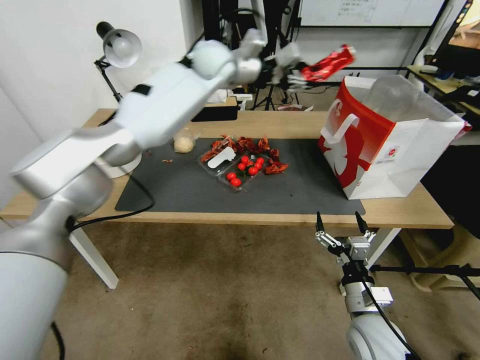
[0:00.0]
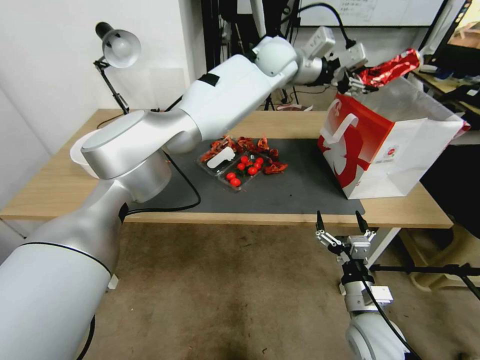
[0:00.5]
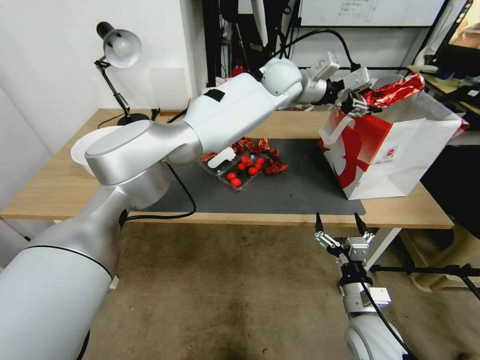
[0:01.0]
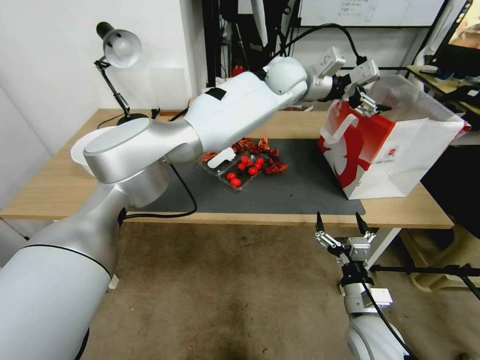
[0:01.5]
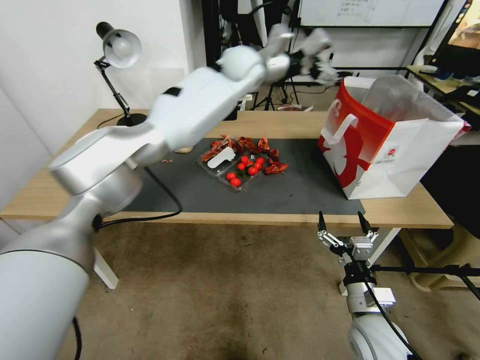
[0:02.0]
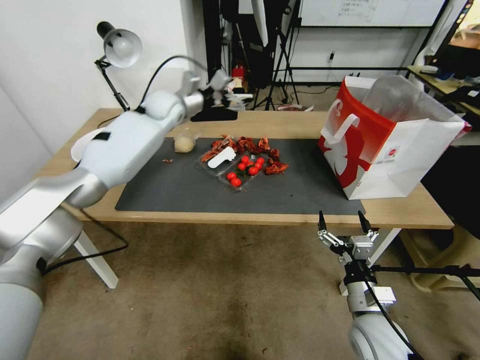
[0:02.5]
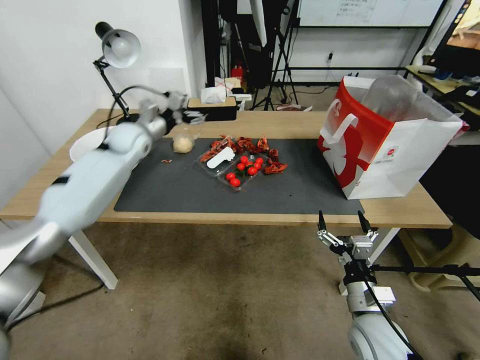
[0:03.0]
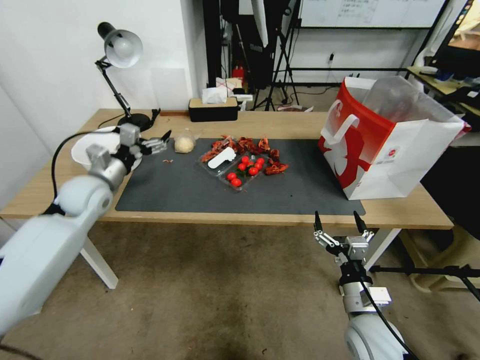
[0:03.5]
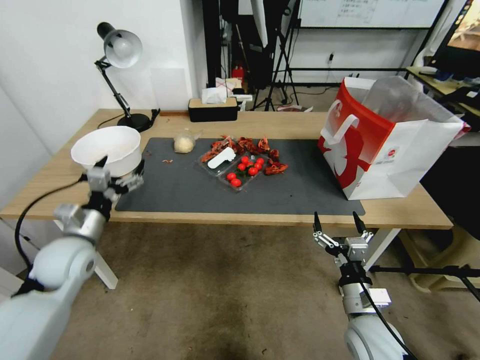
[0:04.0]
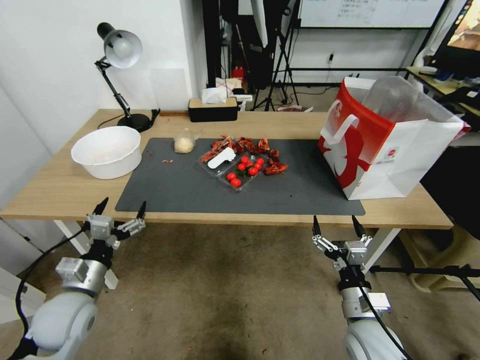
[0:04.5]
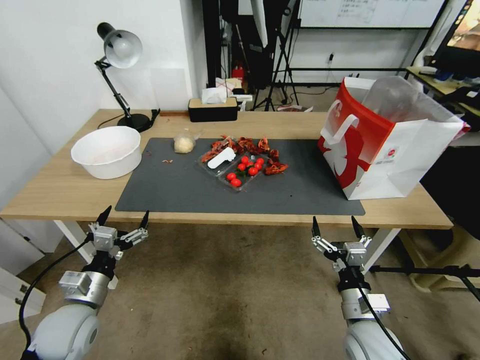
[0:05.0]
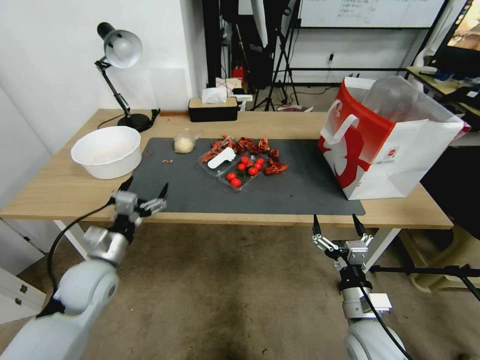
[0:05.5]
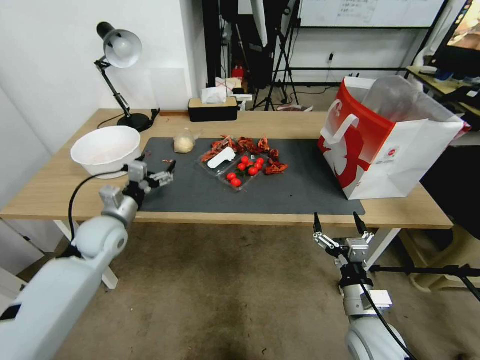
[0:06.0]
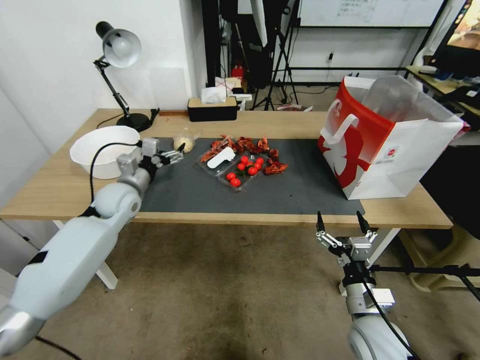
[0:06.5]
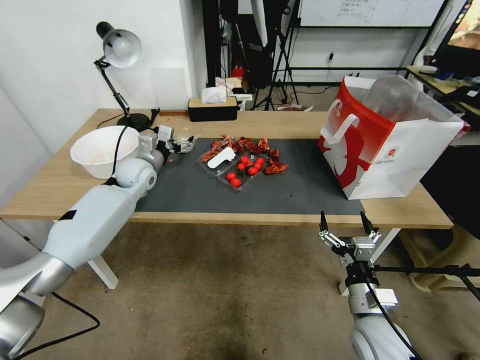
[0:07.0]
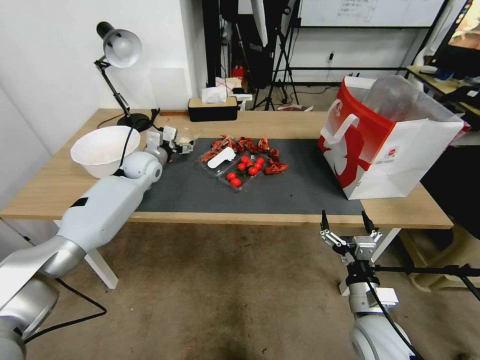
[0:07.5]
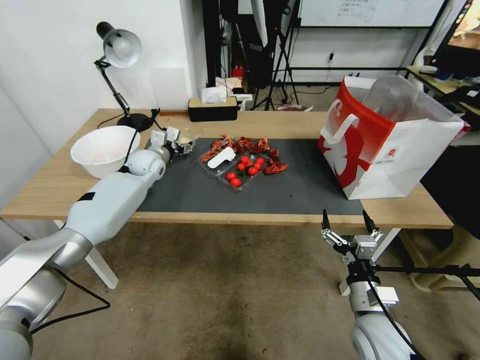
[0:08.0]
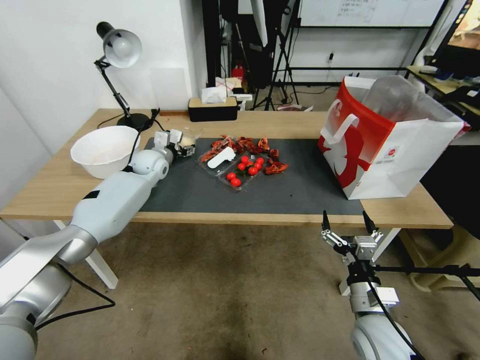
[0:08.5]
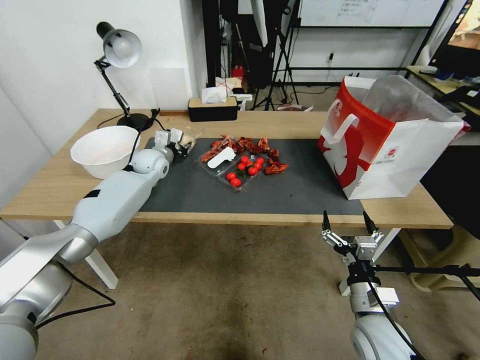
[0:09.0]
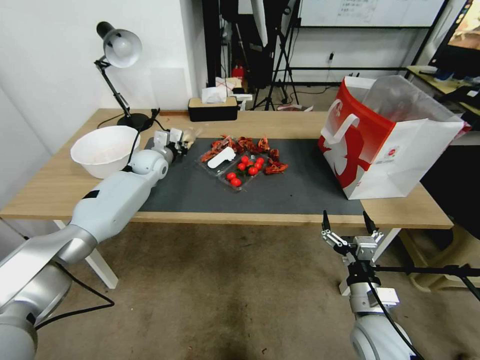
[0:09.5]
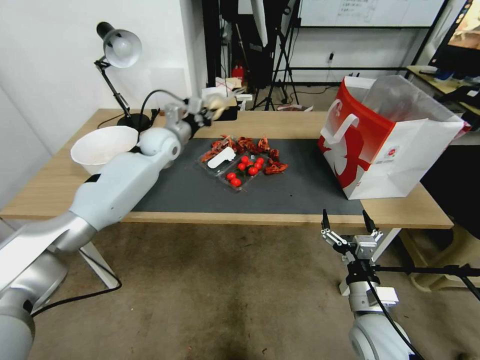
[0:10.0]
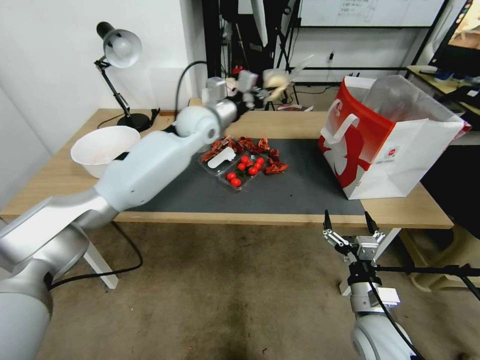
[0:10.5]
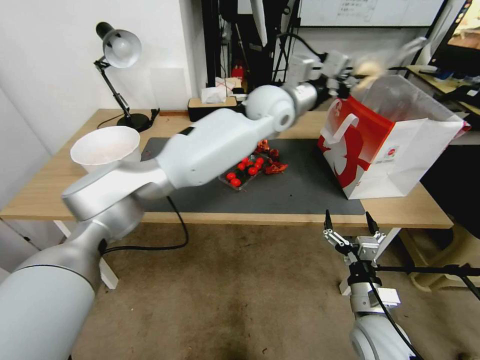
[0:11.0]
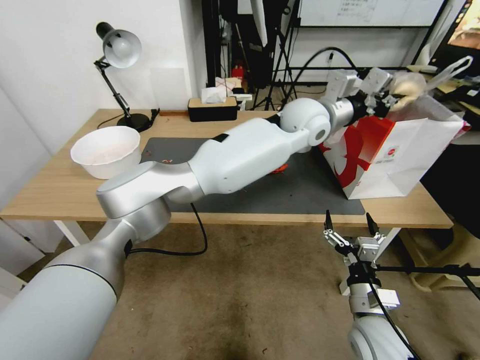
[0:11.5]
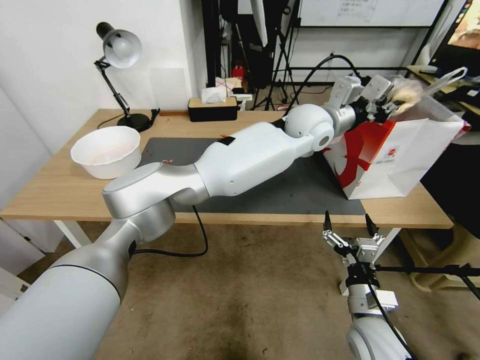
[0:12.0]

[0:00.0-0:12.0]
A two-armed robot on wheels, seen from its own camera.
0:00.0 to 0:02.0: The left gripper heads to the right, covering approximately 10 cm, and opens its fingers.
0:02.0 to 0:04.0: The left gripper shifts some 50 cm to the left, backward and downward.
0:04.0 to 0:06.0: The left gripper shifts some 5 cm downward, and goes backward and returns, approximately 15 cm each way.
0:06.0 to 0:08.0: The left gripper moves forward, about 20 cm.
0:08.0 to 0:10.0: The left gripper shifts by about 5 cm, and closes its fingers.
0:10.0 to 0:12.0: The left gripper is displaced to the right by some 40 cm.

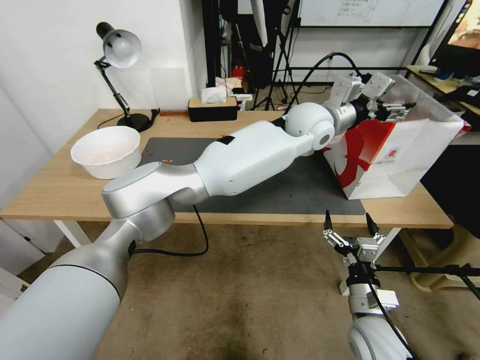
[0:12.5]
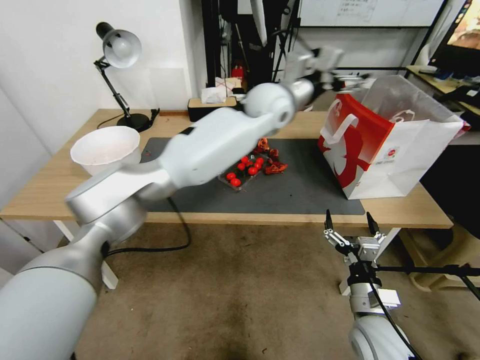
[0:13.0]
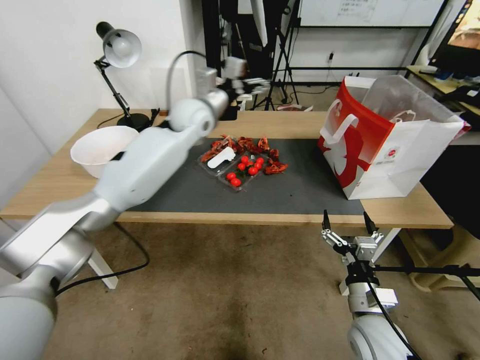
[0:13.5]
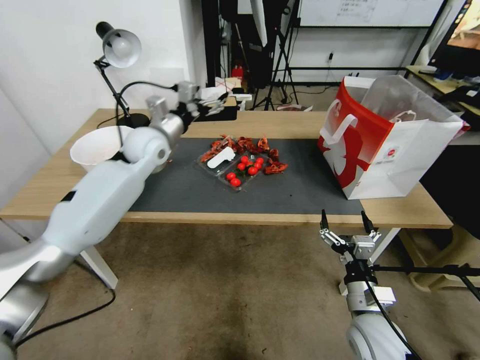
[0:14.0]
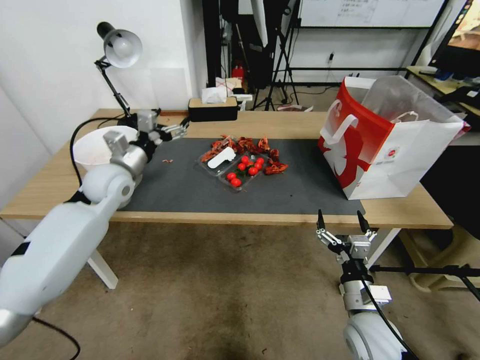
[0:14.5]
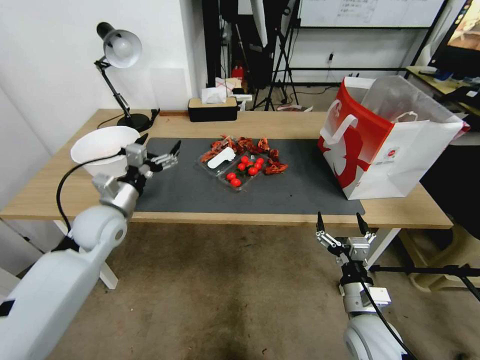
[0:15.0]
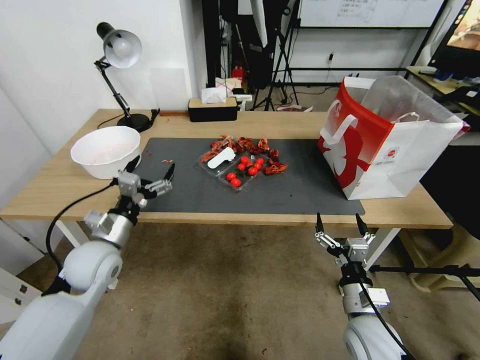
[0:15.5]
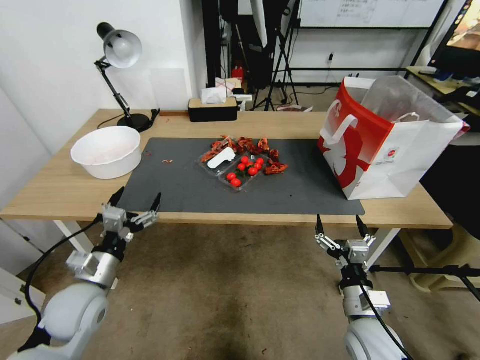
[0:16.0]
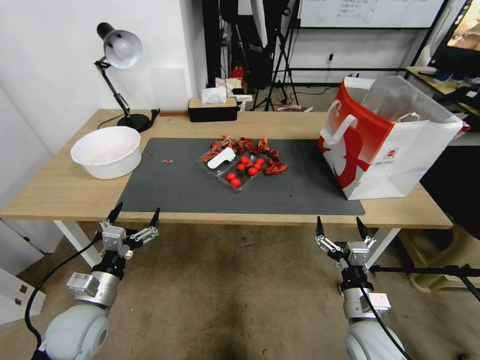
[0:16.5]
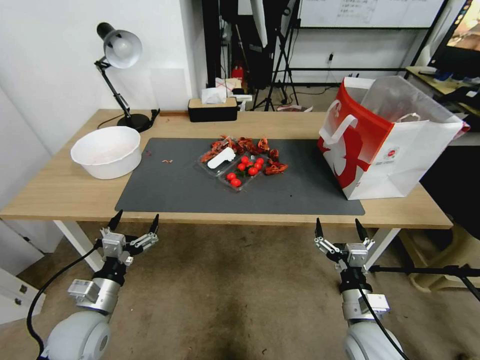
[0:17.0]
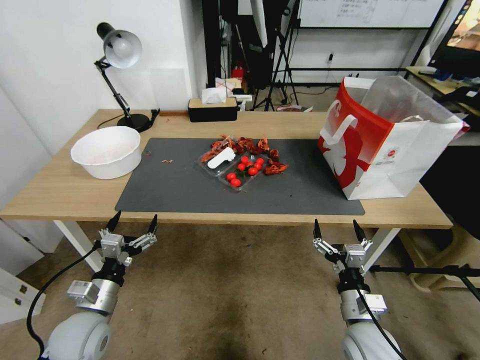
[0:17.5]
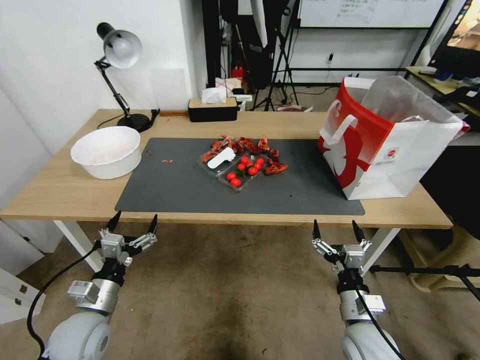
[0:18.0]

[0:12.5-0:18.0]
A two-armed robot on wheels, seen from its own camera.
0:12.5 to 0:14.5: The left gripper is displaced to the left by roughly 40 cm.
0:14.5 to 0:16.0: The left gripper travels backward and downward by about 25 cm.
0:16.0 to 0:18.0: The left gripper travels backward and downward by some 10 cm.

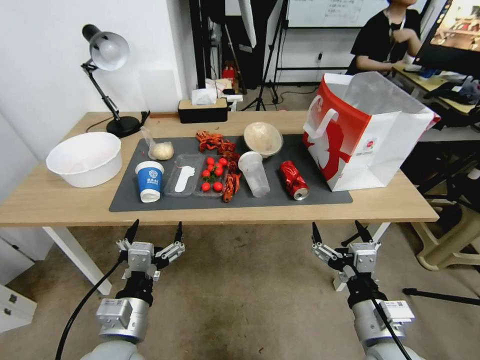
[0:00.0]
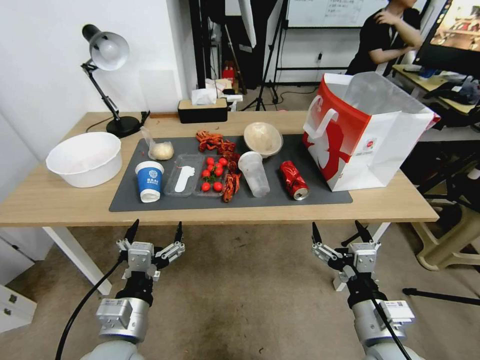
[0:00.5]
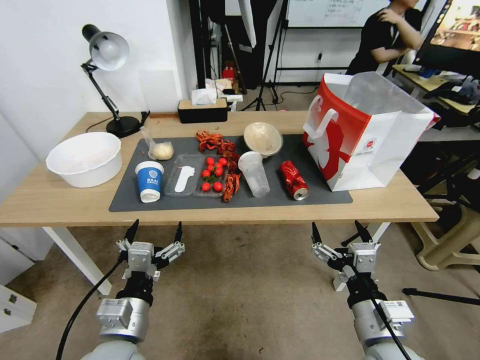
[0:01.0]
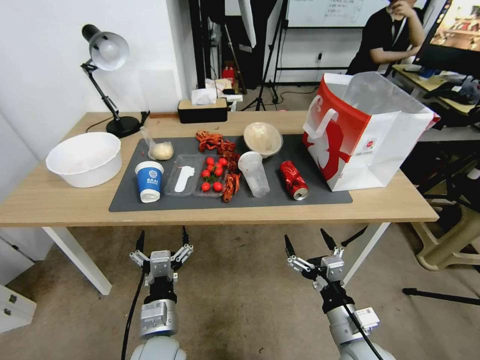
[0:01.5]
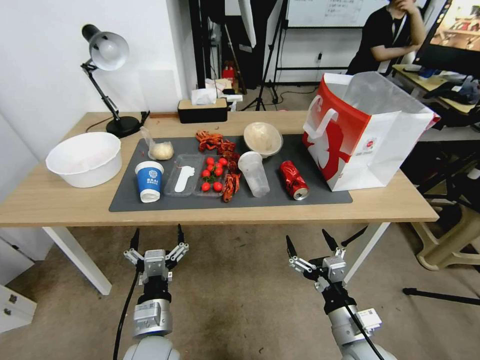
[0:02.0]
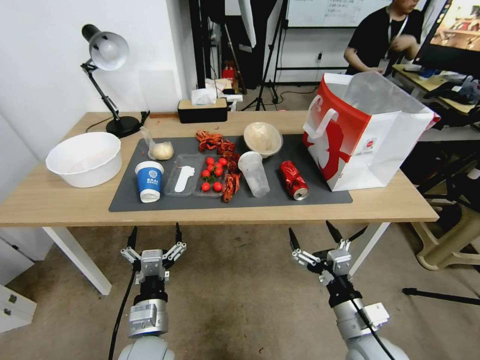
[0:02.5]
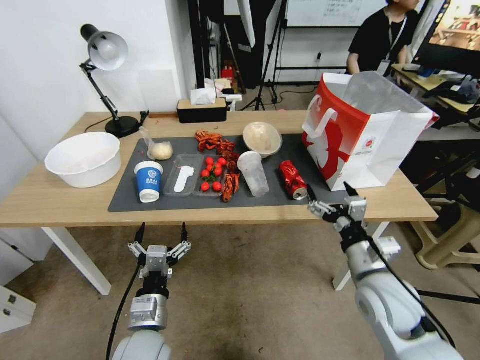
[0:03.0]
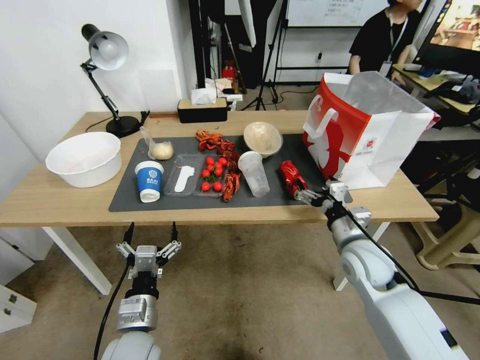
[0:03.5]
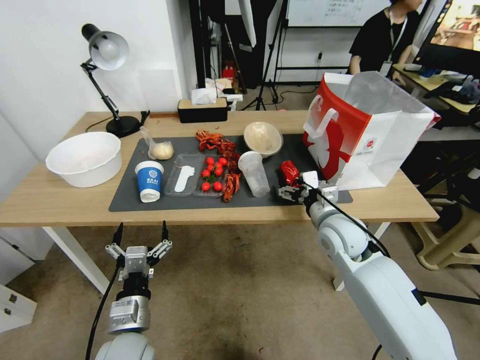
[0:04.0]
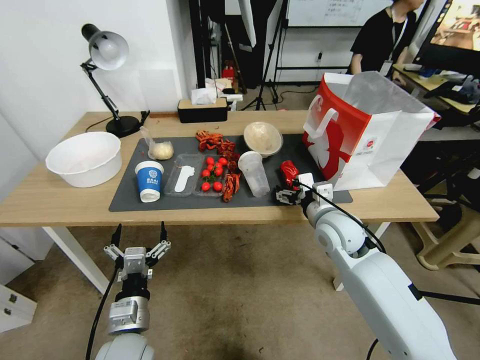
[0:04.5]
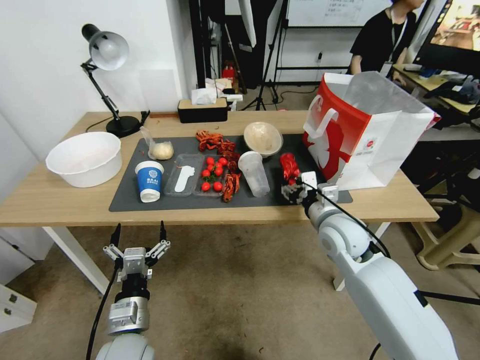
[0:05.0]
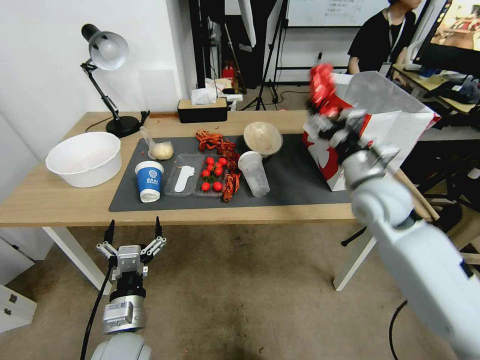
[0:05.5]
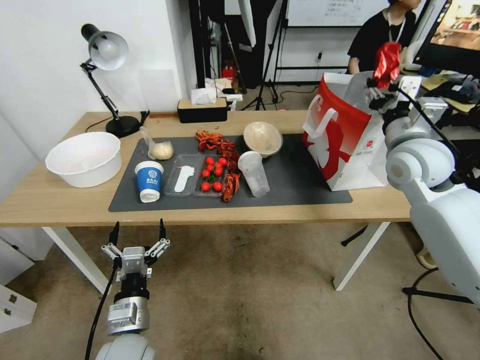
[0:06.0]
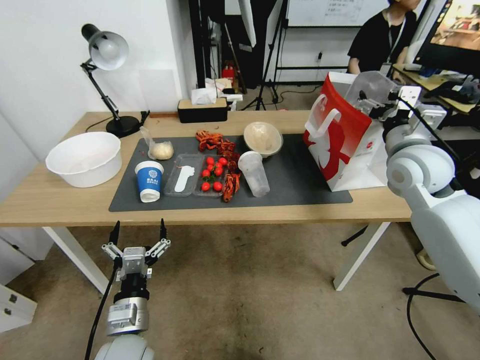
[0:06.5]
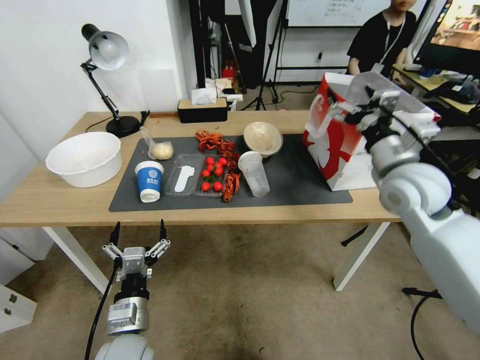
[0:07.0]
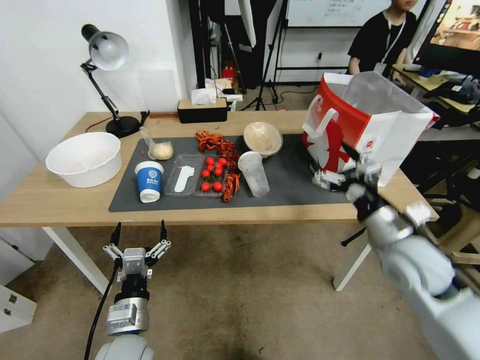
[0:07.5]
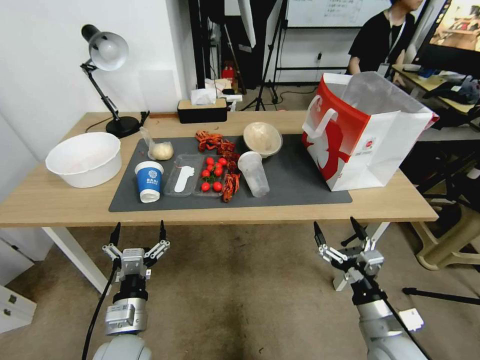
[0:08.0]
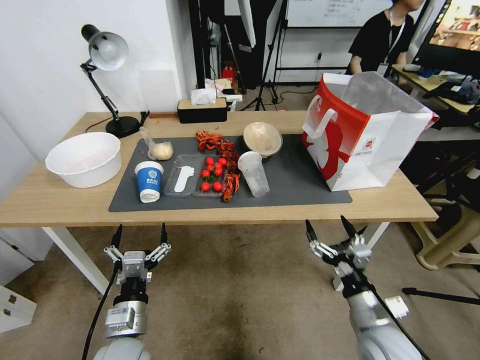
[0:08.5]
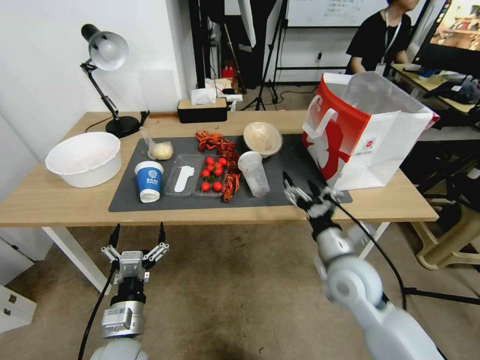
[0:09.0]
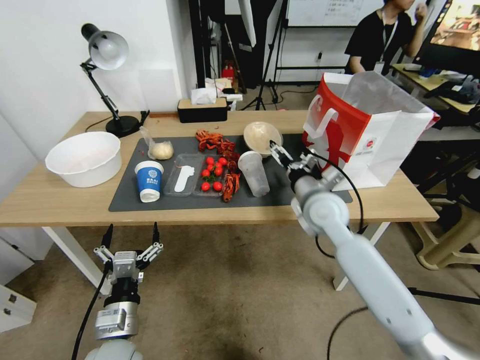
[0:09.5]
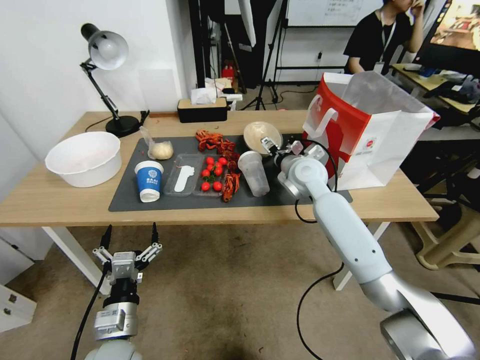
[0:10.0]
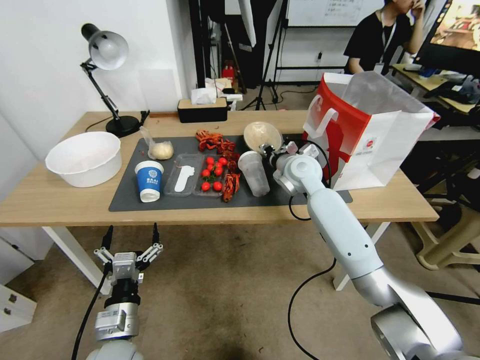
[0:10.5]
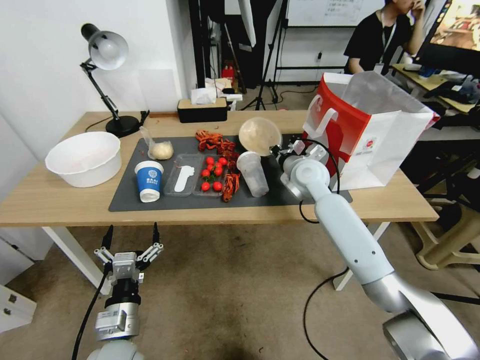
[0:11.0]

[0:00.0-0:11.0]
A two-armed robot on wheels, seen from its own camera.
0:02.0 to 0:03.5: The right gripper moves forward and upward, some 20 cm.
0:03.5 to 0:05.5: The right gripper goes approximately 15 cm upward and forward, and closes its fingers.
0:05.5 to 0:07.5: The right gripper goes about 10 cm backward, and opens.
0:07.5 to 0:09.0: The right gripper shifts approximately 10 cm downward and to the left.
0:09.0 to 0:11.0: The right gripper heads forward, covering some 25 cm, and closes.
